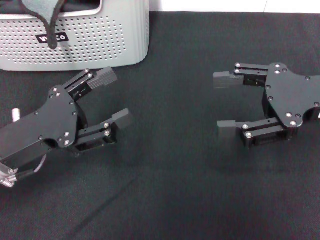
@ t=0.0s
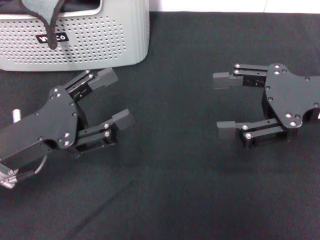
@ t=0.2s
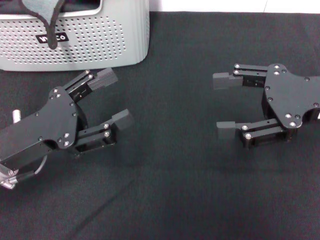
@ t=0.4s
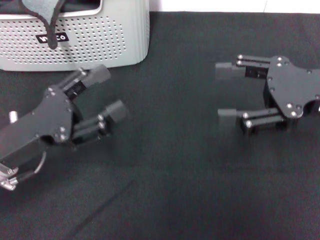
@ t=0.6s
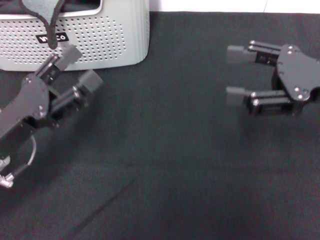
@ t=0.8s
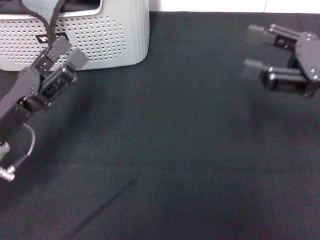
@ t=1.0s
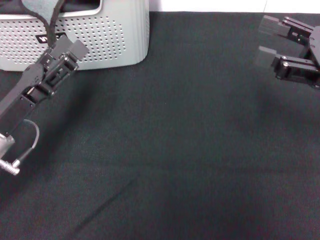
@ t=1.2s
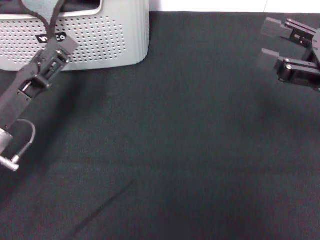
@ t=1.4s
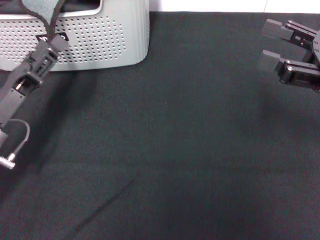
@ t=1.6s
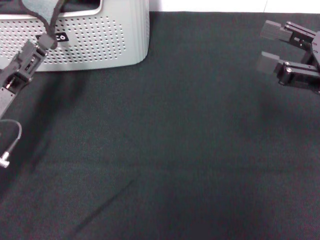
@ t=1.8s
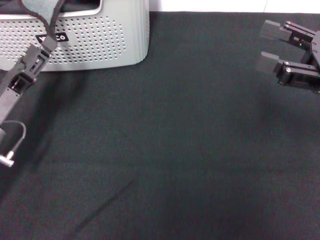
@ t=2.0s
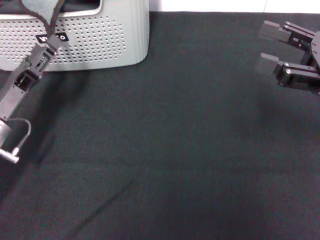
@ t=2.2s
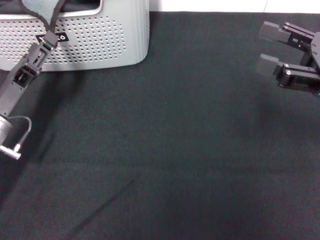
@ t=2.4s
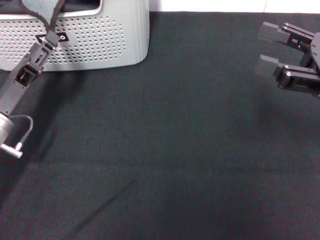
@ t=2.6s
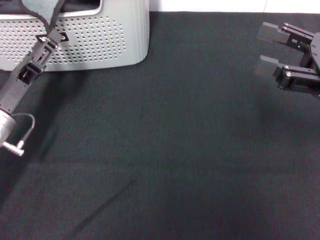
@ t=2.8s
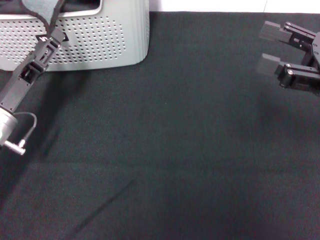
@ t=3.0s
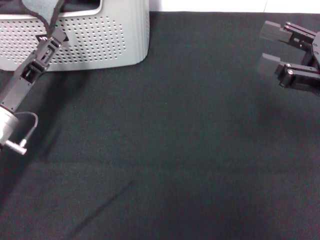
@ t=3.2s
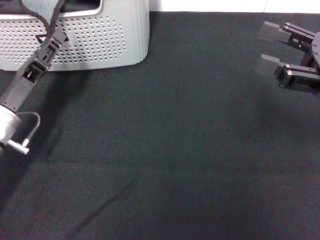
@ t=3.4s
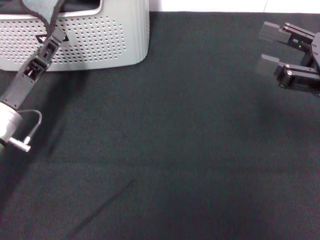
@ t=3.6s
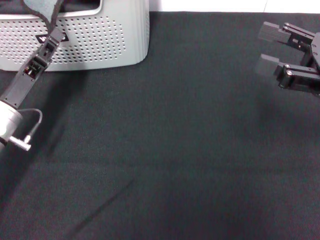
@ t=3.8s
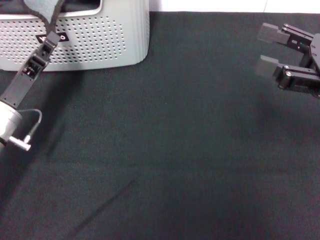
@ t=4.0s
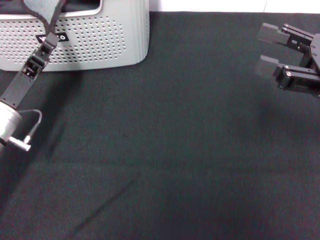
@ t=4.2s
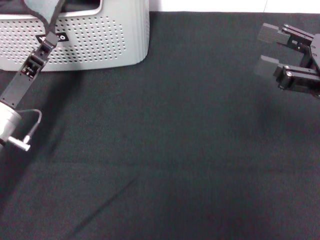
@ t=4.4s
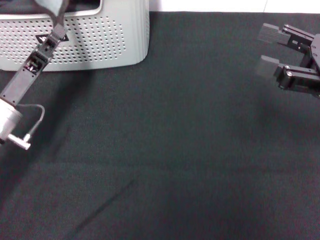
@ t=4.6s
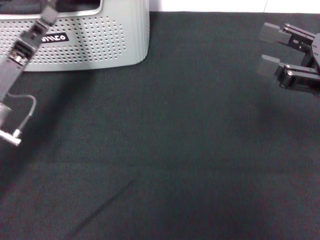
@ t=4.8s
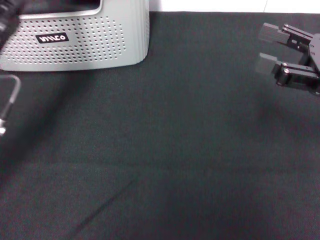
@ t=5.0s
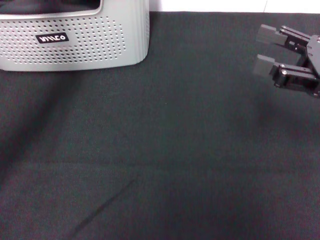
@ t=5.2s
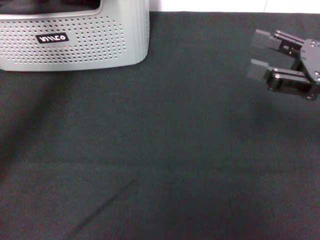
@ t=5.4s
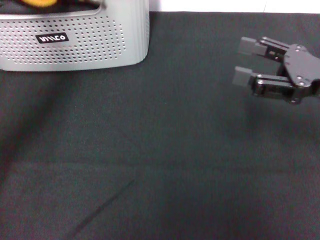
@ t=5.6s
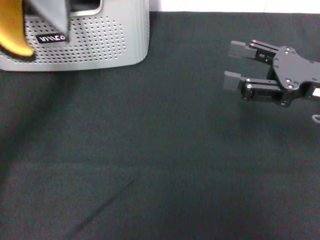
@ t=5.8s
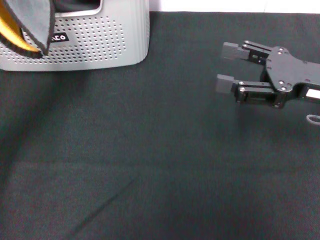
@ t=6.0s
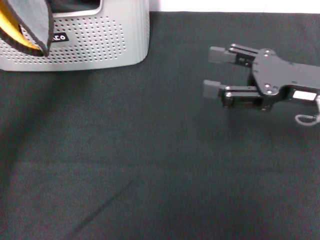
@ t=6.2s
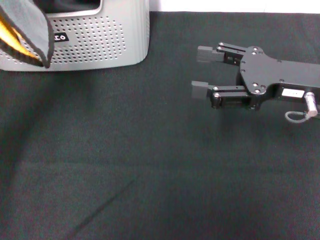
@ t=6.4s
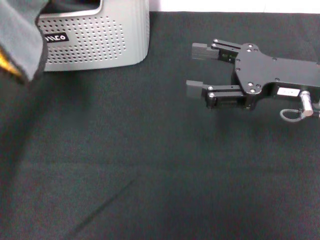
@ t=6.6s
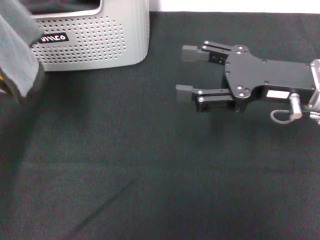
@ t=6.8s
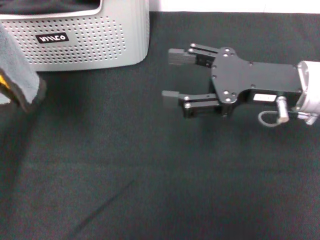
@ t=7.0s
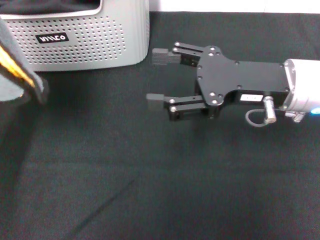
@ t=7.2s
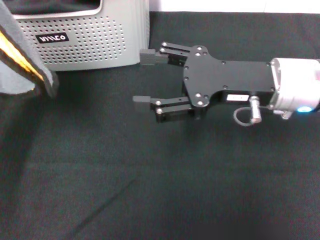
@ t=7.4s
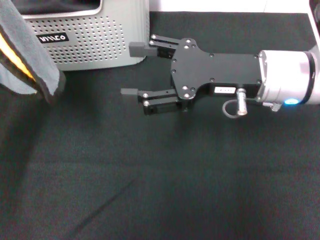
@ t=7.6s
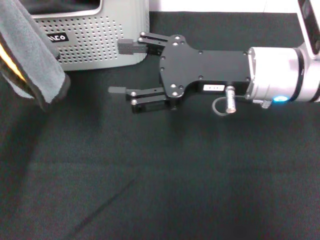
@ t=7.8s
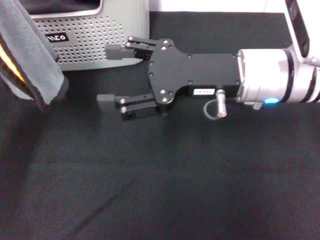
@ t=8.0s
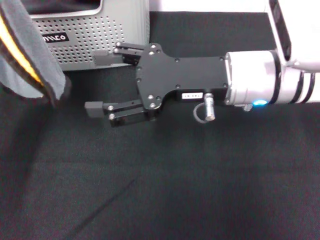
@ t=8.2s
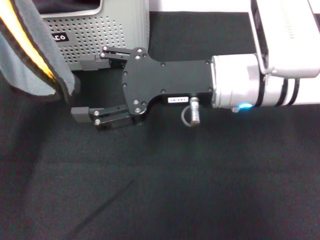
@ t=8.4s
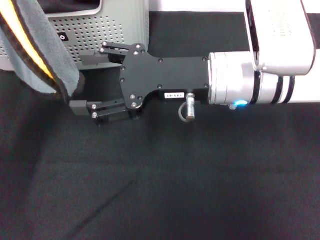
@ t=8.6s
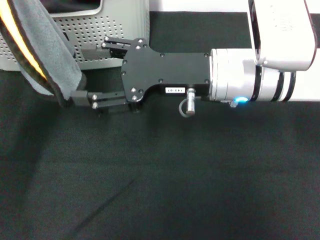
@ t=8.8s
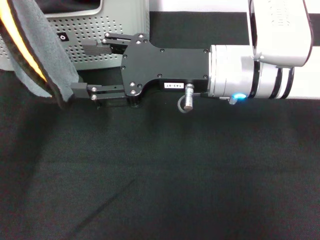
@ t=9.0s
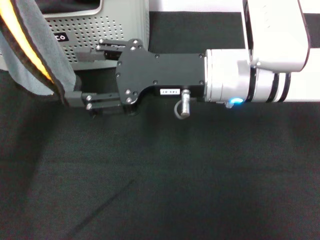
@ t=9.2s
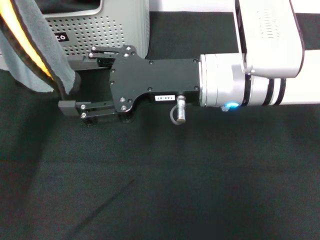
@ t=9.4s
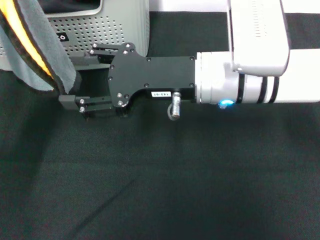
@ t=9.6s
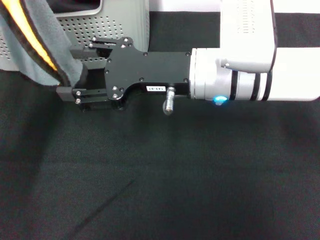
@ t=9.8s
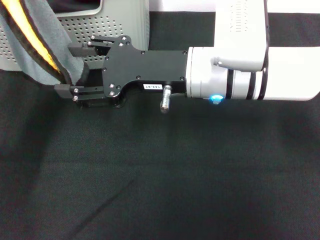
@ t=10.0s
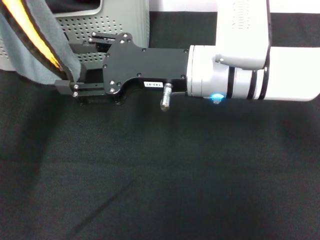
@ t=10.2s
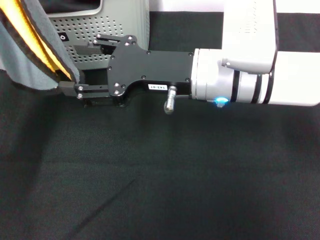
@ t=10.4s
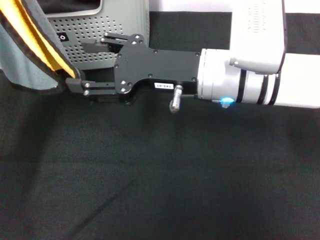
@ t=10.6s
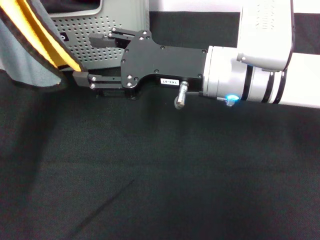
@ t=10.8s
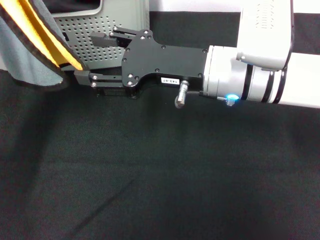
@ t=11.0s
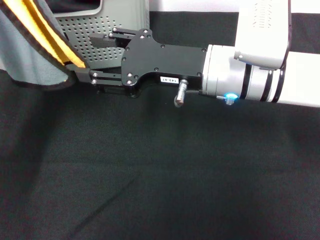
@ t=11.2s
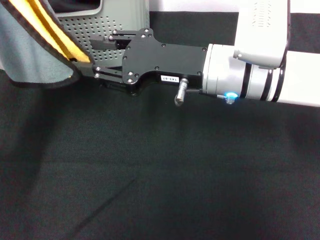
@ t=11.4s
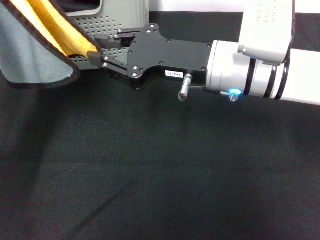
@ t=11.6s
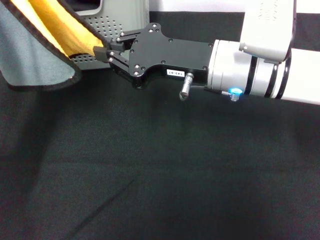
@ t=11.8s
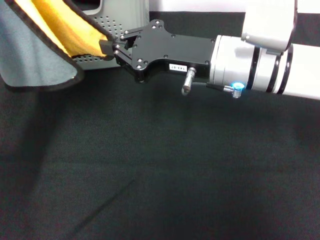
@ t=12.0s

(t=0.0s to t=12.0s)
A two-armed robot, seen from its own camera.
Task of the whole recording: pick up the towel from the storage box and lay it flat on the black tablecloth.
Step, t=0.0s - t=4.4s: Pick up a towel with the left gripper.
t=0.0s - t=1.6s: The left gripper moves approximately 5 cm.
t=1.6s - t=3.0s: The grippers stay close to where they were, moving slightly.
t=3.0s - t=4.4s: The left gripper closes.
t=4.4s - t=6.0s: The left gripper is displaced upward by some 15 cm.
t=6.0s - t=7.6s: The right gripper goes roughly 10 cm to the left.
t=7.6s - t=9.0s: The right gripper moves to the left, some 5 cm.
t=9.0s - t=10.4s: The grippers make only small movements.
t=10.4s - t=12.0s: The right gripper closes up.

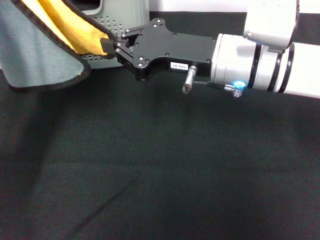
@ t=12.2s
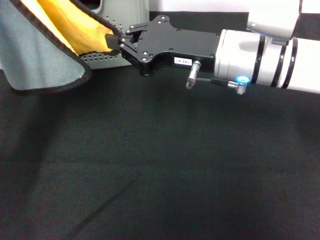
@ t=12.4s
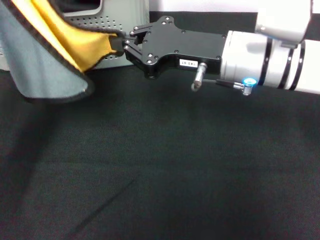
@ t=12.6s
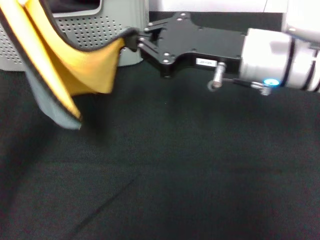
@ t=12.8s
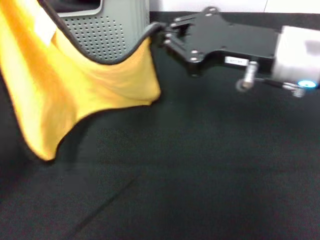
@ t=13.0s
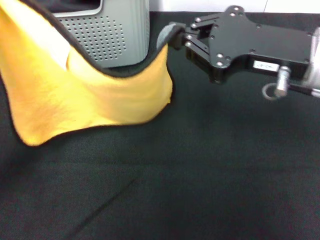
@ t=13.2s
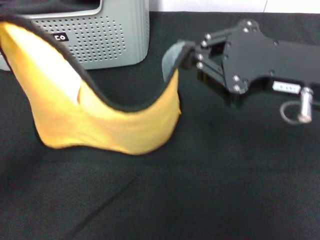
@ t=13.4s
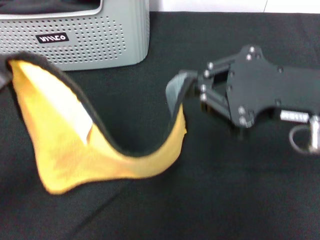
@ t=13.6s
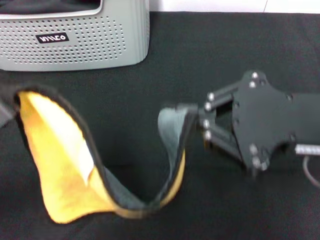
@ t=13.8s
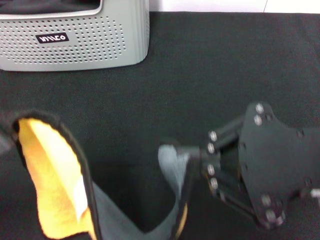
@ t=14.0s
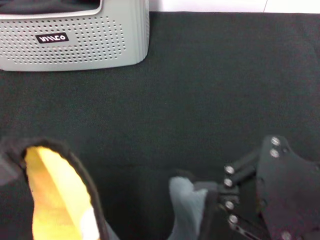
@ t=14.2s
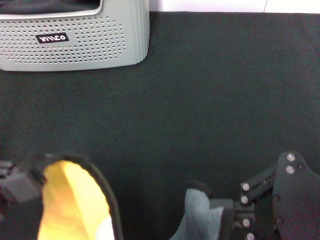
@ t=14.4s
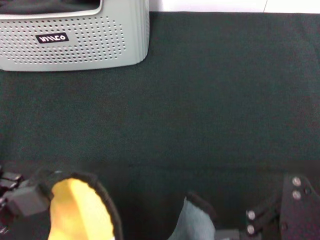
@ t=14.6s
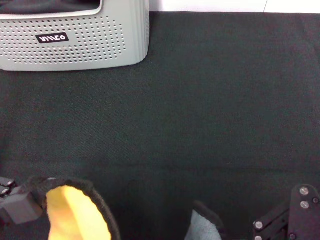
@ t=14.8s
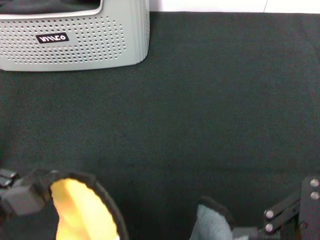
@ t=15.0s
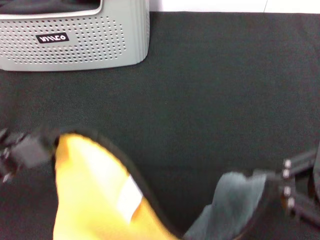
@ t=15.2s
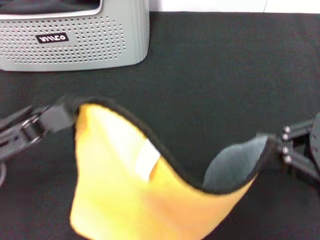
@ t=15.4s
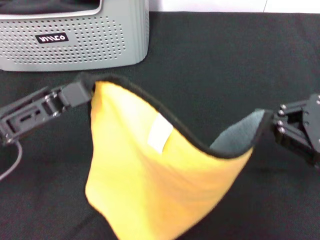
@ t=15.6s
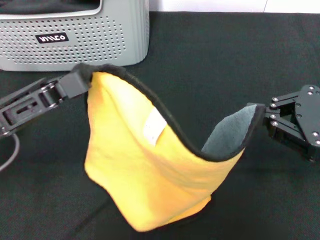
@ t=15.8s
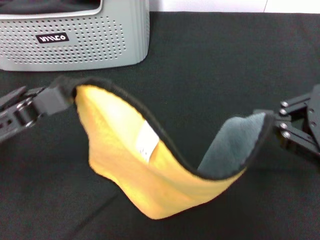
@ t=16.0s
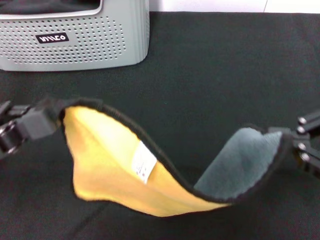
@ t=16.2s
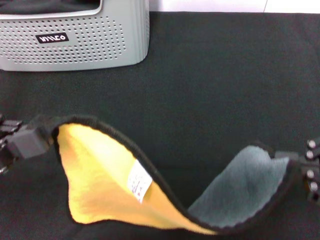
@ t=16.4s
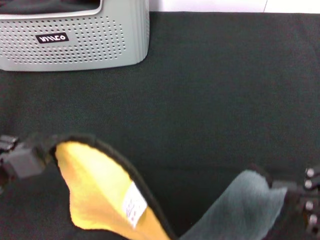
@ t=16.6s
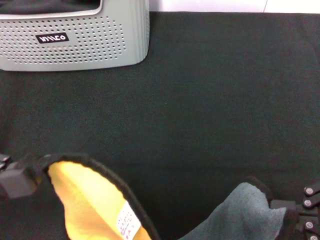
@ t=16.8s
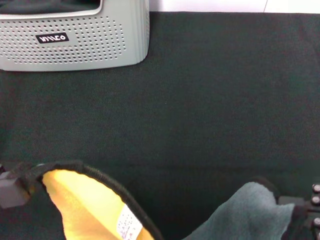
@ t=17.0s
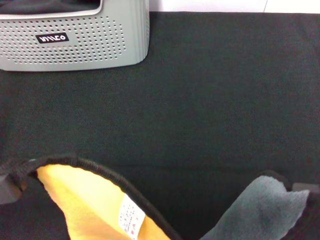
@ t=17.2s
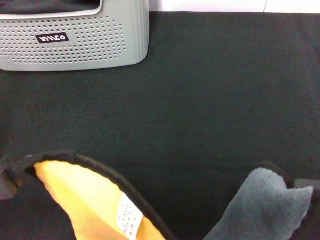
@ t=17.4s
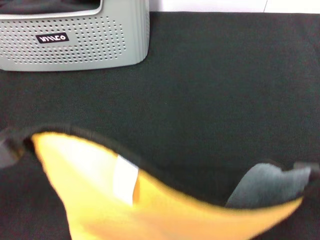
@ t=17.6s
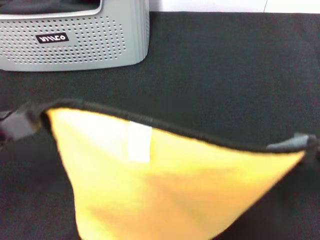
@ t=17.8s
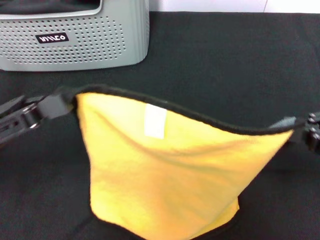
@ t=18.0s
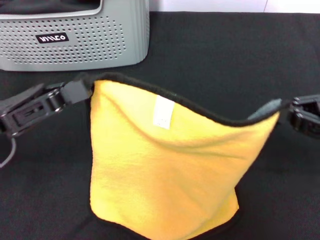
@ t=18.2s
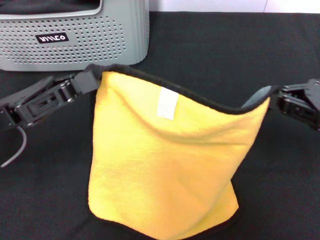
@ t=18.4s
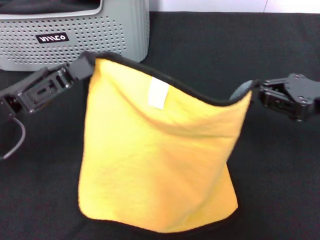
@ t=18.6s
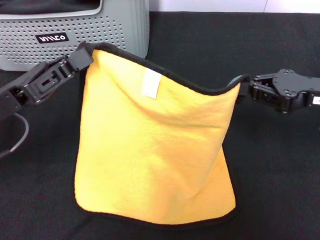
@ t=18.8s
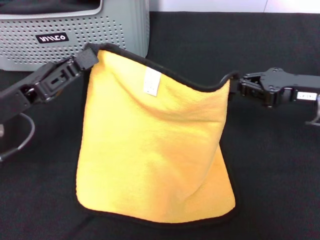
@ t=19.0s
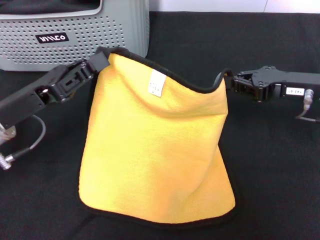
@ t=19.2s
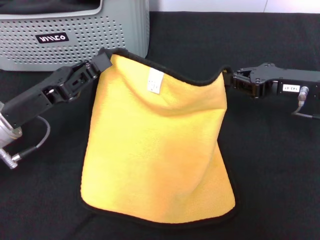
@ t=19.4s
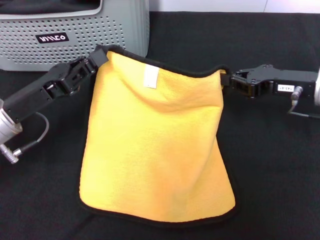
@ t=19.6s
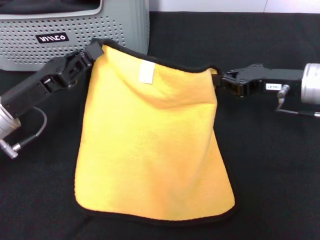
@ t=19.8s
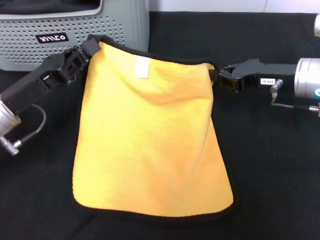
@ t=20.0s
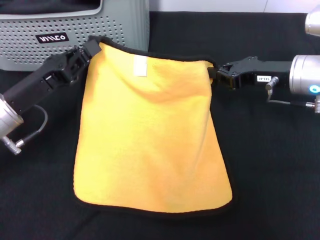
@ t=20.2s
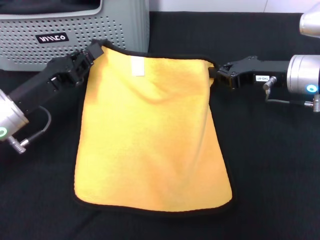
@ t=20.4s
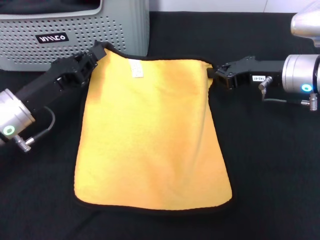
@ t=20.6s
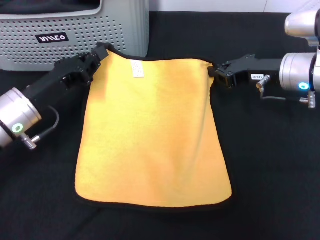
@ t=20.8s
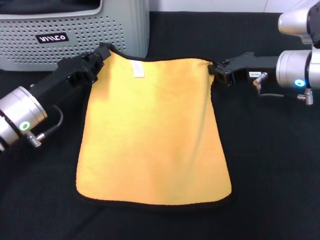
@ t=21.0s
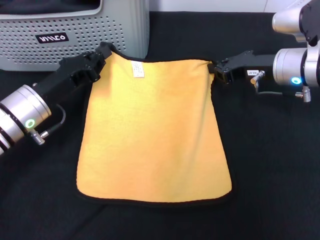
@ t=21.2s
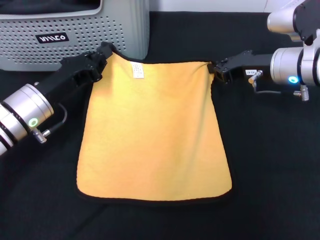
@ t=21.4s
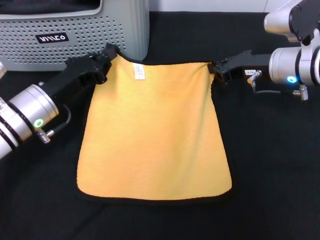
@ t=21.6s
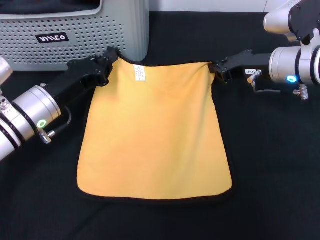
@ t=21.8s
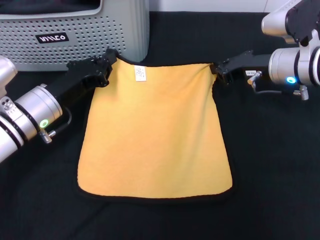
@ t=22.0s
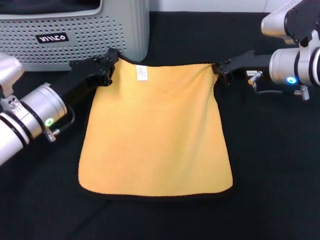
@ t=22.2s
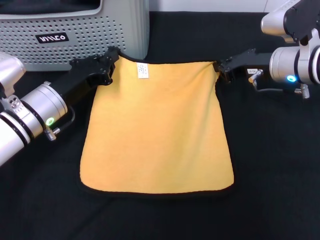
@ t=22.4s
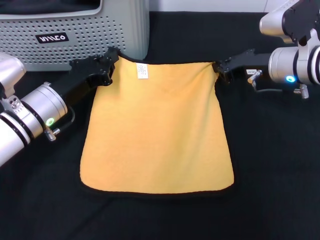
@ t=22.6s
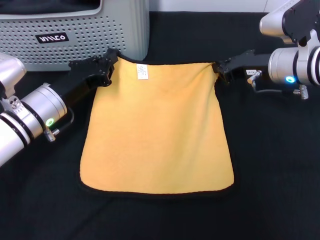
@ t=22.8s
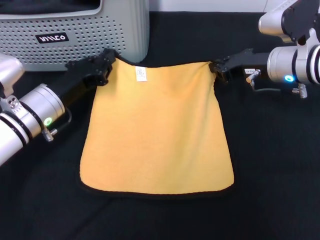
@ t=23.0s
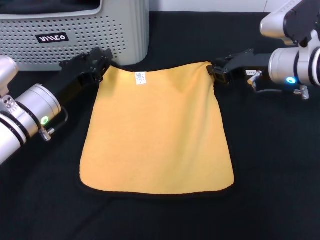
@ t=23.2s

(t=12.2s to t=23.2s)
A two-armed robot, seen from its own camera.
Task of the whole recording: pick up the towel from the storage box and lay it flat on the black tablecloth.
t=12.2s - t=13.8s: The right gripper goes about 15 cm backward, to the right and upward, while the left gripper heads backward and to the left, covering about 15 cm.
t=13.8s - t=15.4s: The right gripper shifts about 5 cm to the right.
t=15.4s - t=17.0s: Both grippers move backward, some 5 cm.
t=17.0s - t=18.4s: The right gripper travels forward and downward by about 15 cm. The left gripper goes roughly 10 cm forward.
t=18.4s - t=20.0s: The right gripper goes approximately 15 cm forward and to the left. Meanwhile the left gripper ends up some 5 cm from where it was.
t=20.0s - t=21.6s: The left gripper ends up approximately 5 cm from where it was.
t=21.6s - t=23.2s: The grippers make only small movements.
